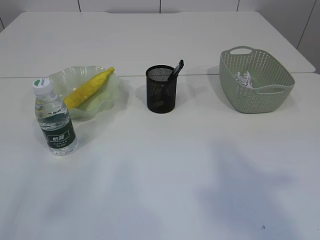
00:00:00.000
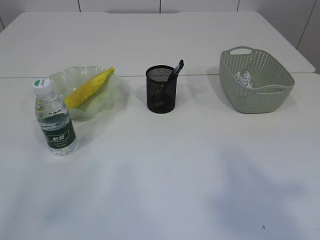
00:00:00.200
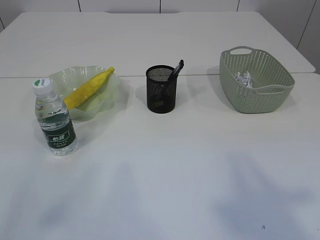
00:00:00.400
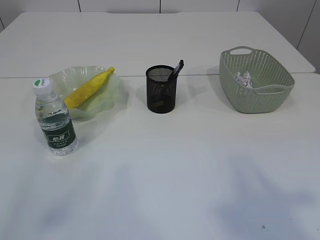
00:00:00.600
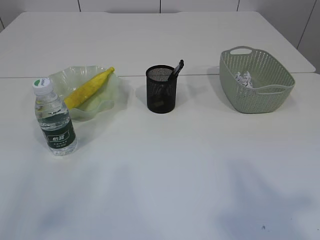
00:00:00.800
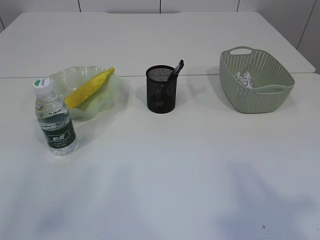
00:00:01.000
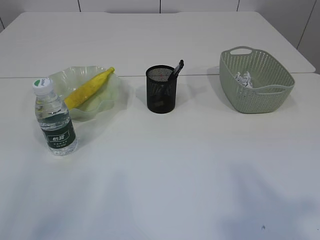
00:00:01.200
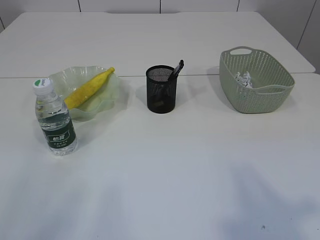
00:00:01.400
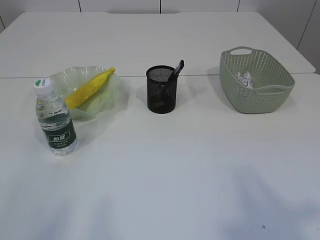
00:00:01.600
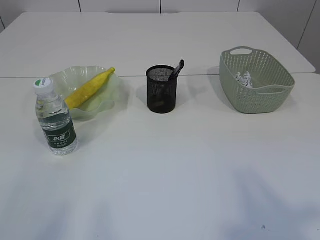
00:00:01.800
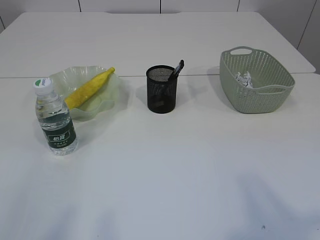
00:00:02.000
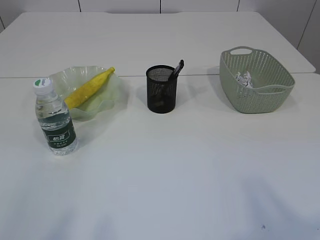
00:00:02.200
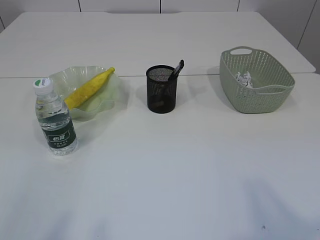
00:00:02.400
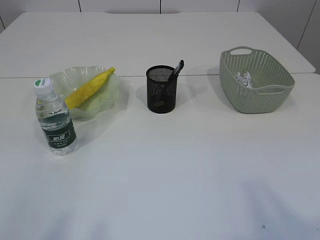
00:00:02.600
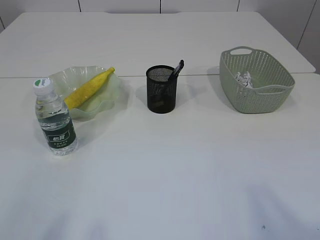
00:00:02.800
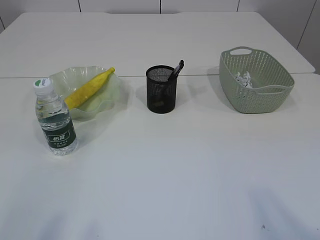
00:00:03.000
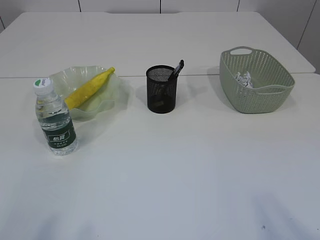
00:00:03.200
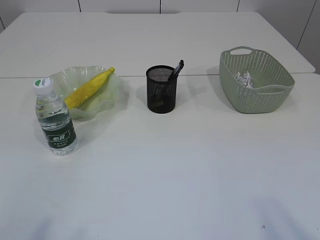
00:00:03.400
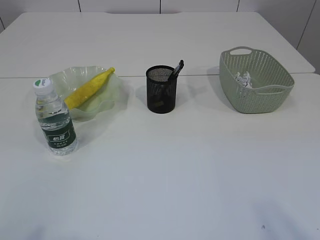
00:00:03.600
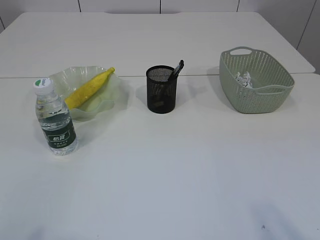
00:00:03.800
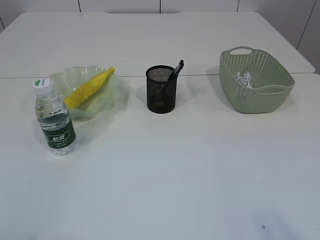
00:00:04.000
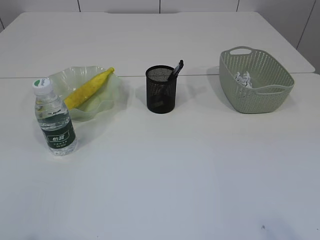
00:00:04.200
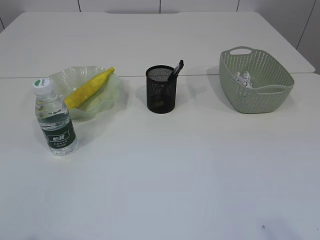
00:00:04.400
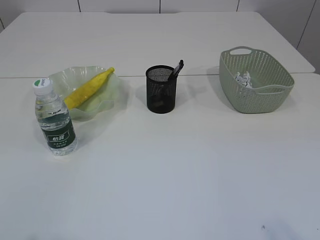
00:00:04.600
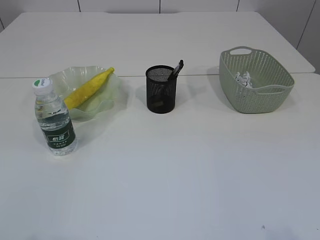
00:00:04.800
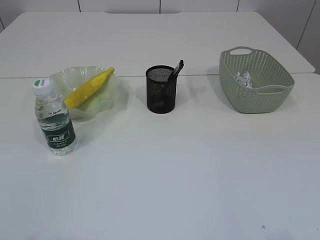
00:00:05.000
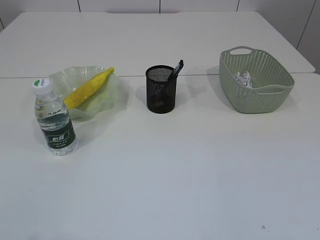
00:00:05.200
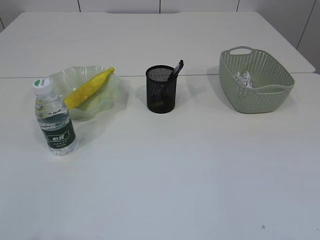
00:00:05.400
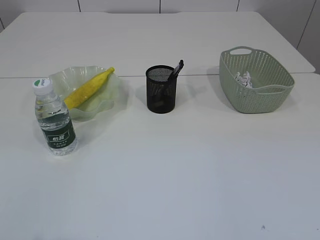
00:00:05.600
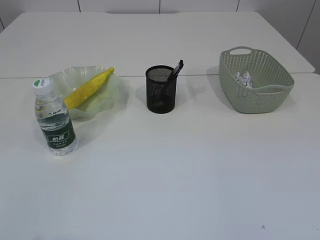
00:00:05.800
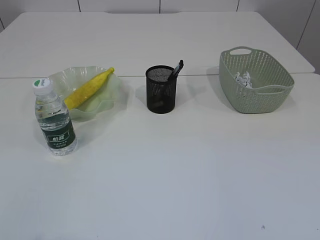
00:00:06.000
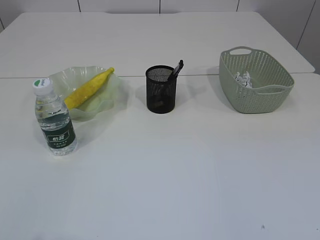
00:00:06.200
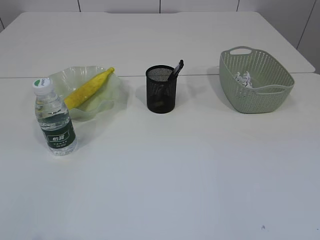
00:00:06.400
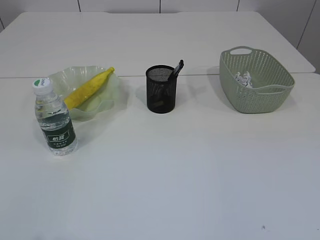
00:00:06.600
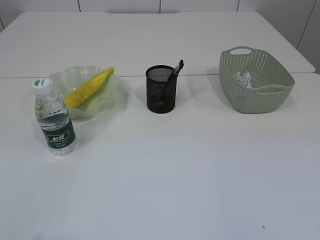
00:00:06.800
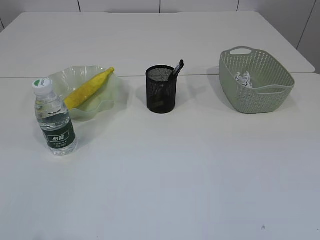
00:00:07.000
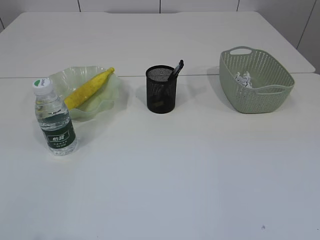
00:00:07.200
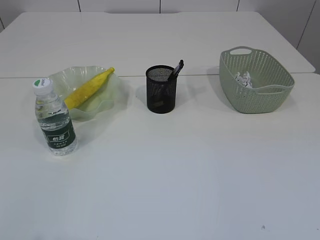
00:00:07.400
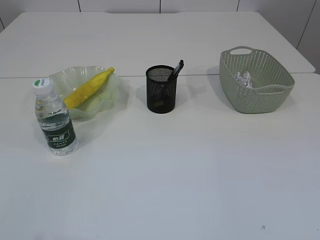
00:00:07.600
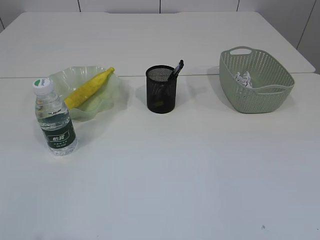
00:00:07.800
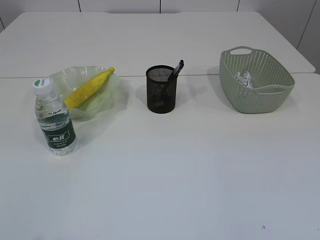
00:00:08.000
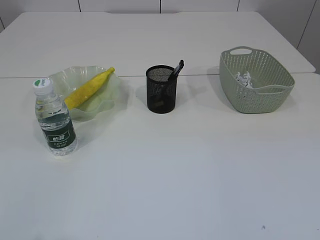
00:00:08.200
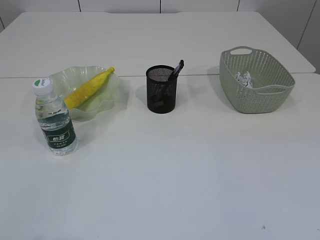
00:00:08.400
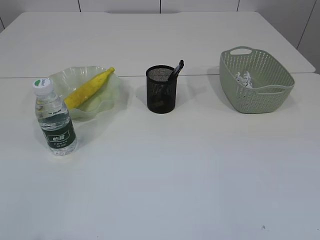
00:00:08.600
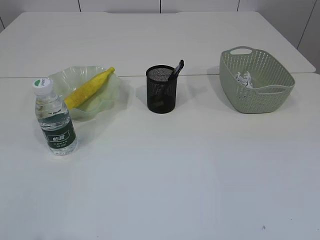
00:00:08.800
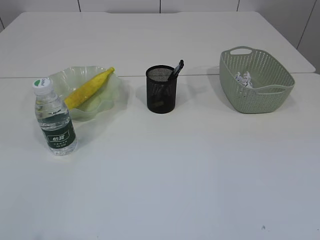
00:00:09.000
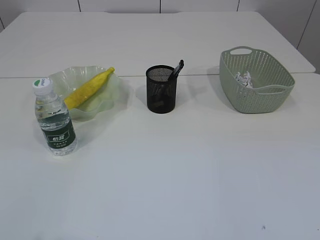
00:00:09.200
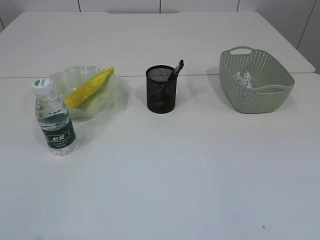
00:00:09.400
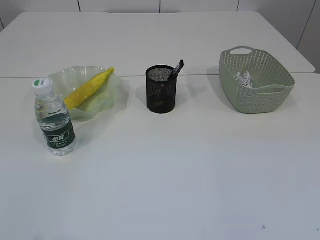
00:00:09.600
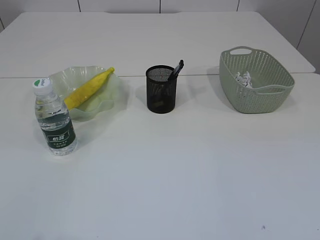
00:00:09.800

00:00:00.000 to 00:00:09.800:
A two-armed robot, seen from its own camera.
00:00:08.400 to 00:00:09.800: Both grippers stay about where they are.

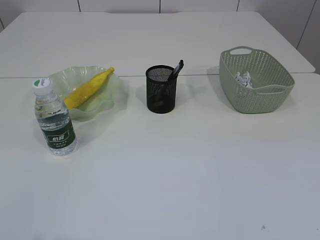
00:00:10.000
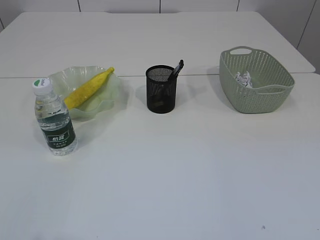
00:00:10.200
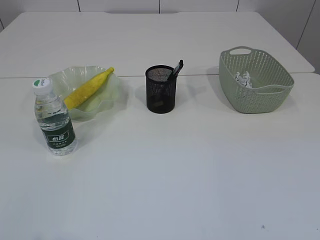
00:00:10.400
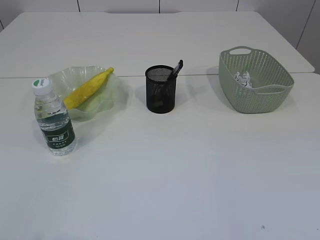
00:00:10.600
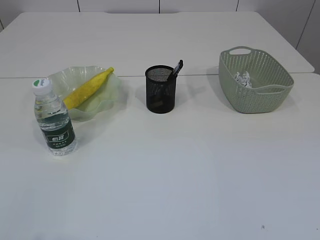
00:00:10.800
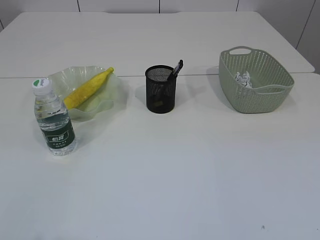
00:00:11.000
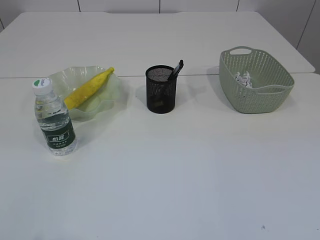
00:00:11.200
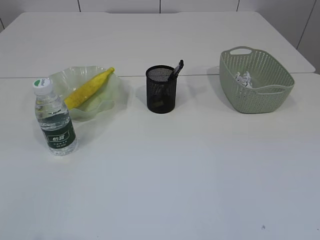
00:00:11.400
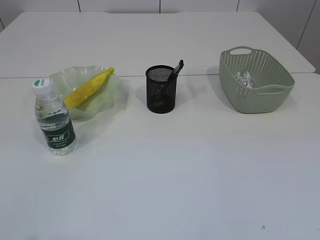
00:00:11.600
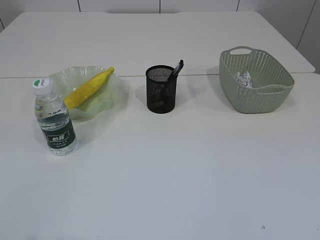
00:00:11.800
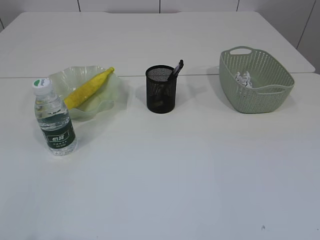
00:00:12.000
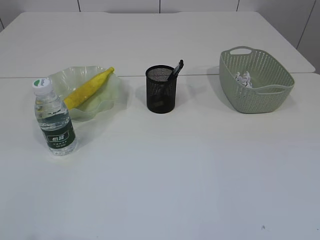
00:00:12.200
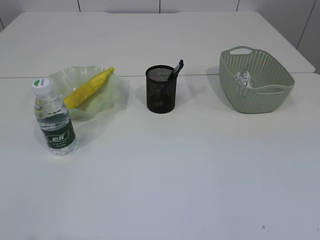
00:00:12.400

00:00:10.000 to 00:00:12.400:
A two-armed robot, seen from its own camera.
00:00:11.200 to 00:00:12.400: Both grippers stay about where they are.

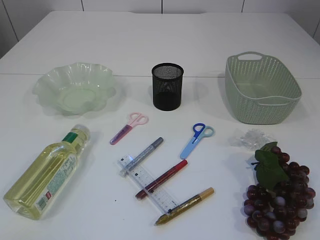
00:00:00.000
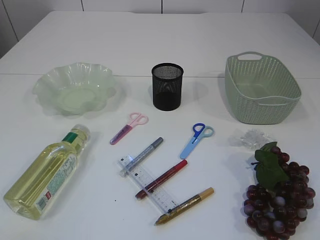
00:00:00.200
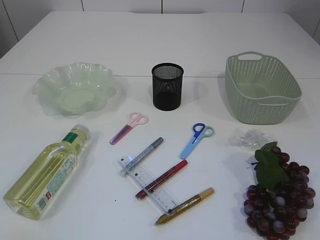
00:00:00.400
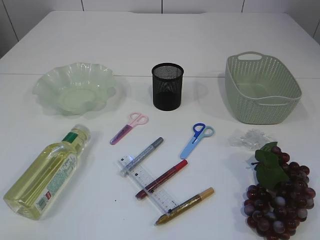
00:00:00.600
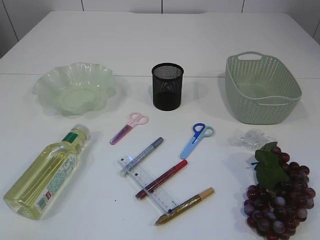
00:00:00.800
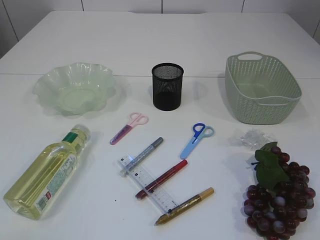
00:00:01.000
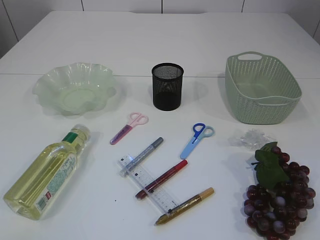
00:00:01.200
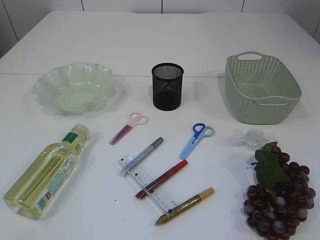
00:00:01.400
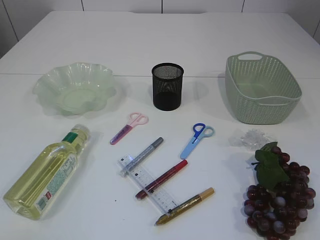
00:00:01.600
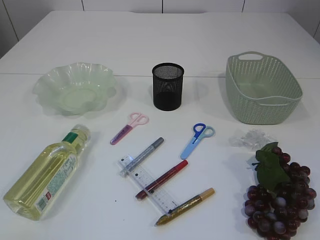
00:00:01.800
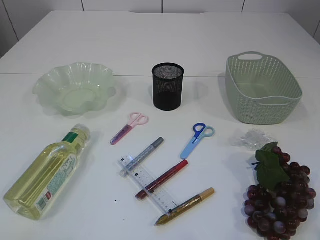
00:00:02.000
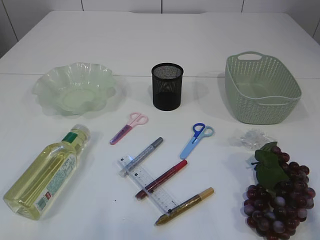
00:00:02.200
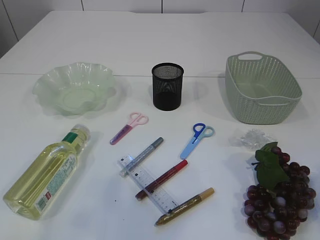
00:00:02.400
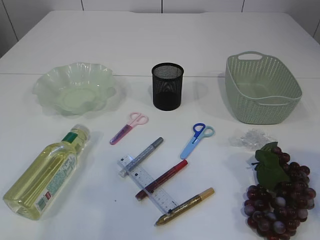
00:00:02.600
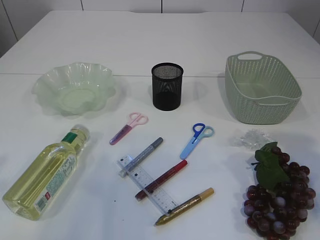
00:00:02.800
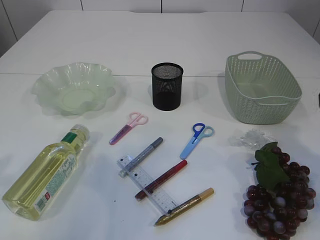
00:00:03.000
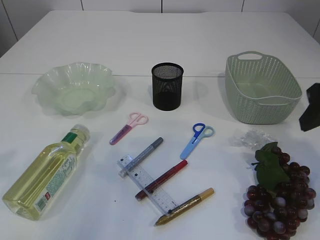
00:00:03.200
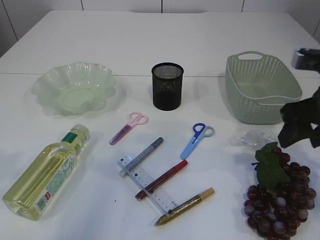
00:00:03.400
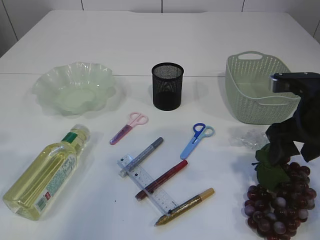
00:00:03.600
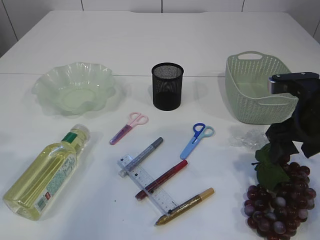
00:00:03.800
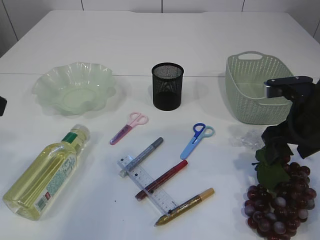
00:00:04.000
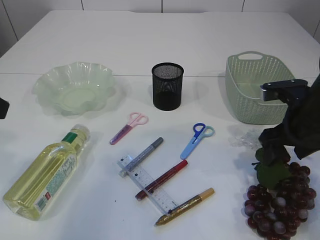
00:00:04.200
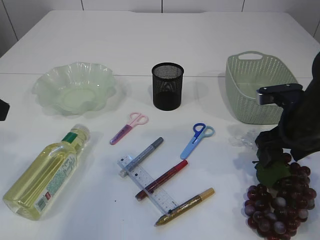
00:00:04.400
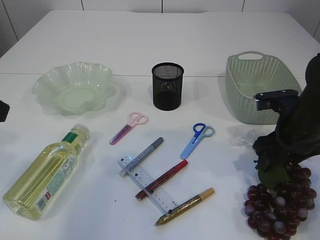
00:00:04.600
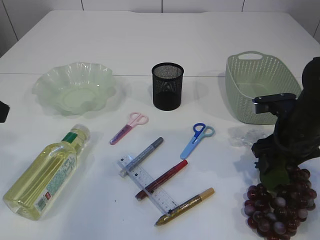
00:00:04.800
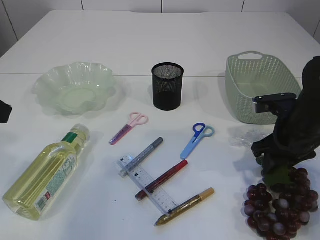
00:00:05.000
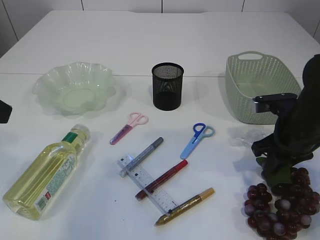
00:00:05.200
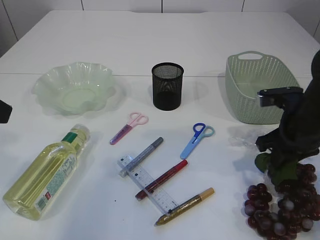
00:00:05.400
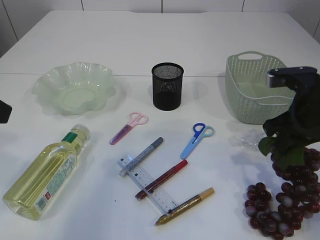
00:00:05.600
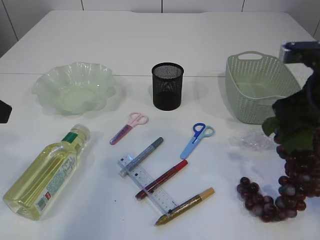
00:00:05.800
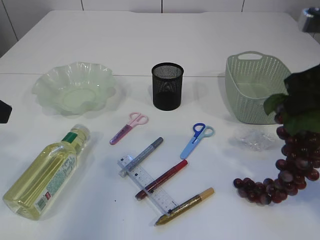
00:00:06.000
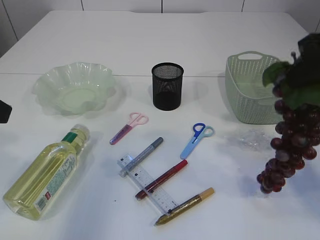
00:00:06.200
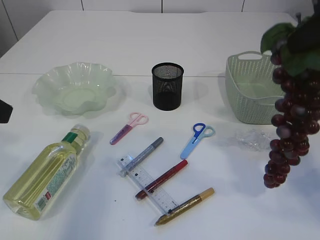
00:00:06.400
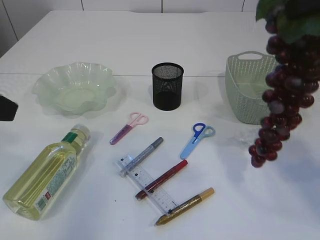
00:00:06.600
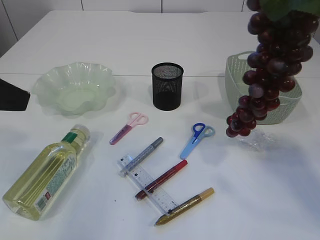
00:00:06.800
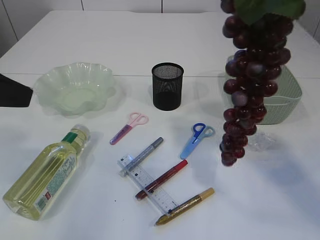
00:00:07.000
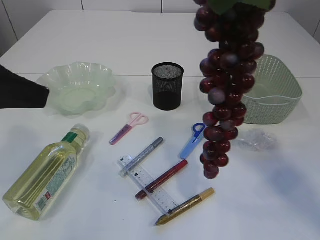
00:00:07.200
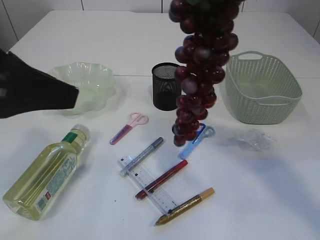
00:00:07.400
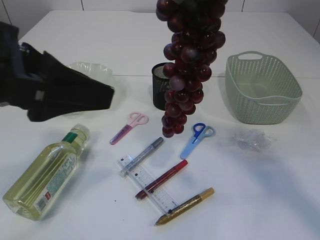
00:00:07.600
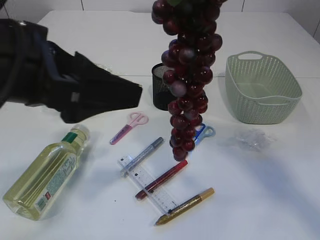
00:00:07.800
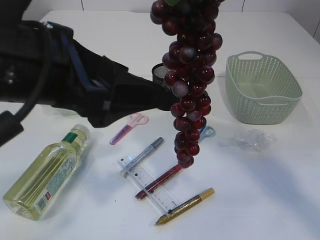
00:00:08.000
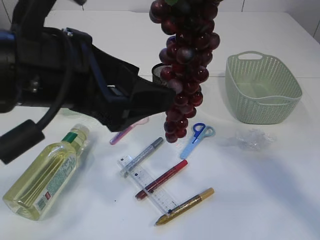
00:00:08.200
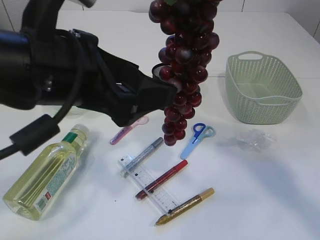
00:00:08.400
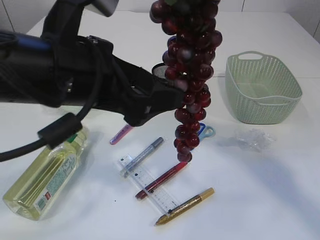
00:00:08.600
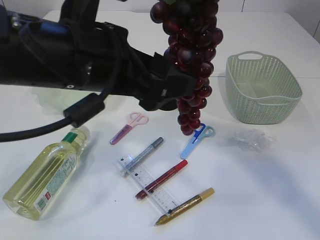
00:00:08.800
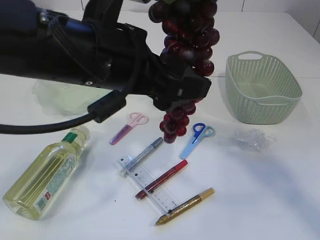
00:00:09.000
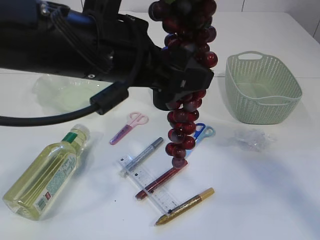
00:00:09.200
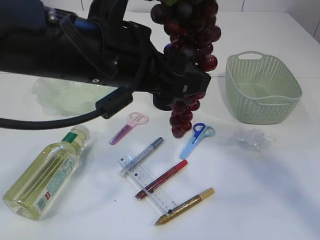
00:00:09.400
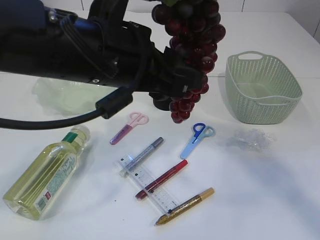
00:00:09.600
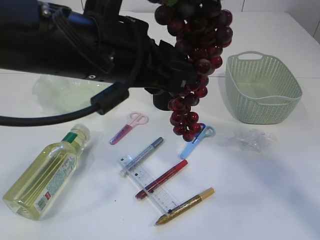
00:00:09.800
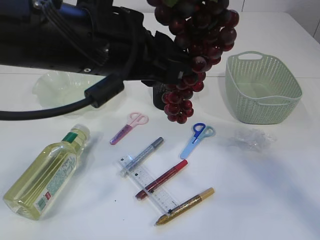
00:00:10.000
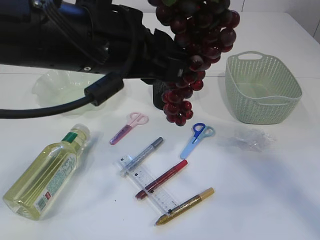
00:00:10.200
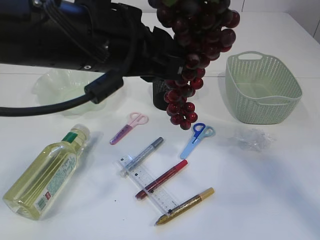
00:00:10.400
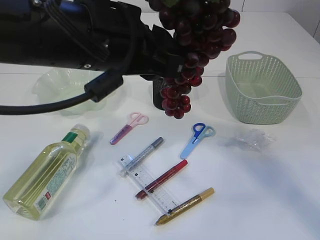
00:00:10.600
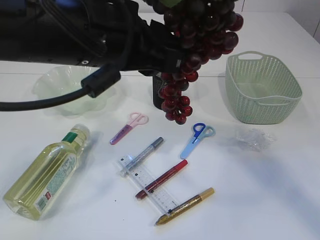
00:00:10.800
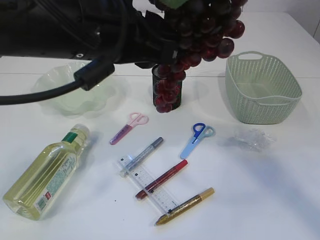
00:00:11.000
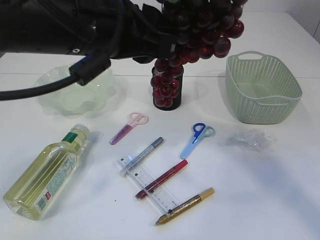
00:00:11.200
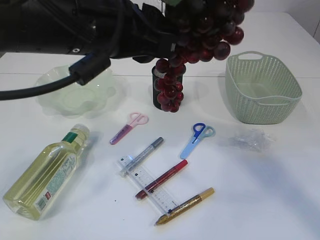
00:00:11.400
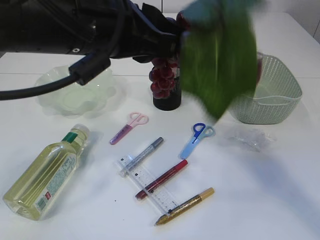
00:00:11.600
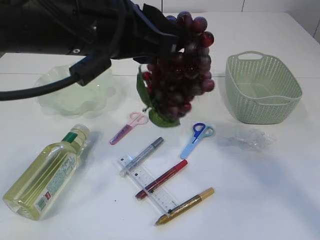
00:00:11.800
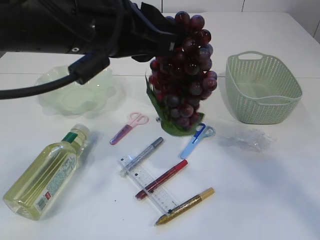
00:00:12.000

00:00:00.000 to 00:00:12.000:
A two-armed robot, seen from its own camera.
Step, 00:00:00.000 to 00:00:06.200: Pick up the grapes.
00:00:01.600 to 00:00:03.000: The grippers both shift forward by some 20 cm.
00:00:03.000 to 00:00:04.400: The right gripper travels downward and forward by roughly 15 cm.
00:00:04.400 to 00:00:06.000: The right gripper travels upward and backward by roughly 15 cm, and closes its fingers.
00:00:06.000 to 00:00:07.600: The right gripper is displaced upward and to the left by about 20 cm. The left gripper shifts roughly 10 cm to the right.
00:00:07.600 to 00:00:09.000: The left gripper shifts roughly 10 cm to the right.
00:00:09.000 to 00:00:10.400: The left gripper closes.
00:00:10.400 to 00:00:12.000: The right gripper opens its fingers.
